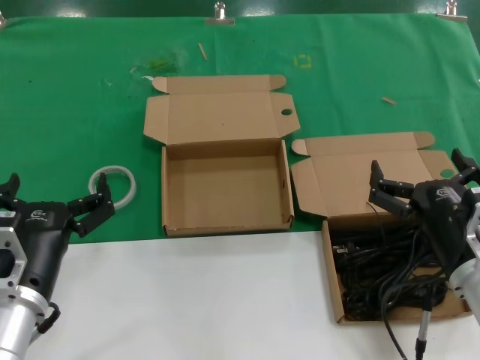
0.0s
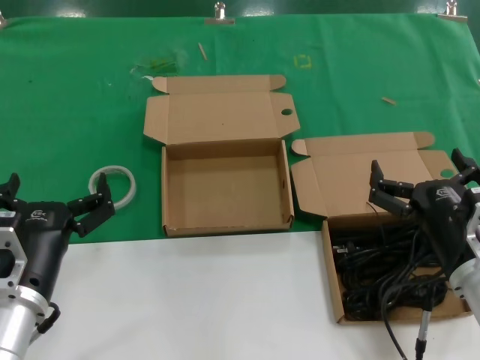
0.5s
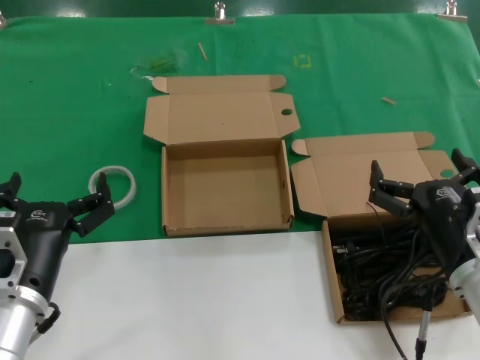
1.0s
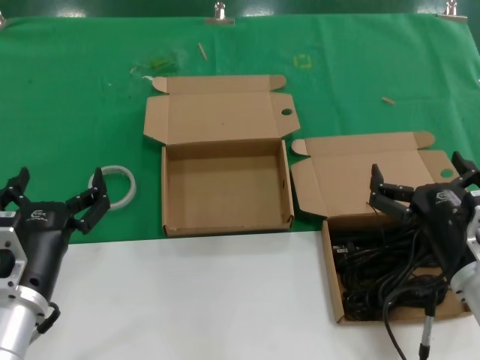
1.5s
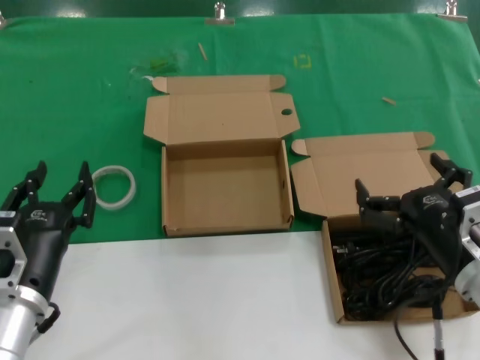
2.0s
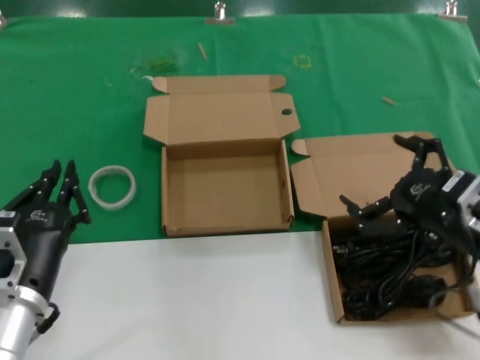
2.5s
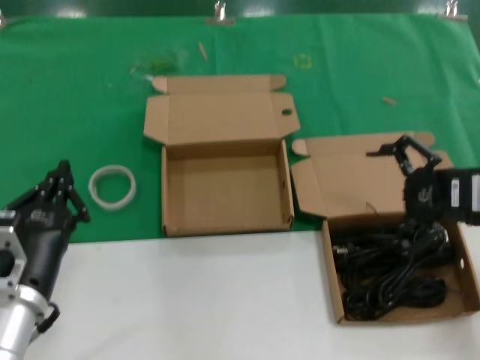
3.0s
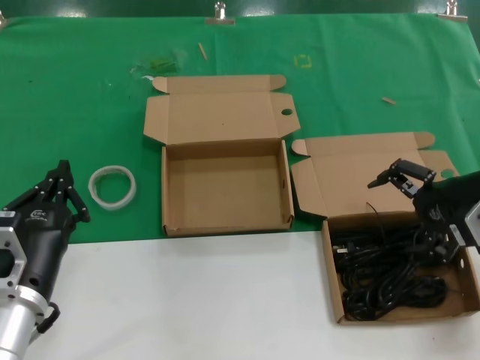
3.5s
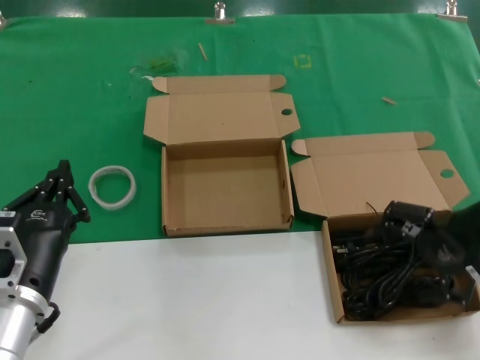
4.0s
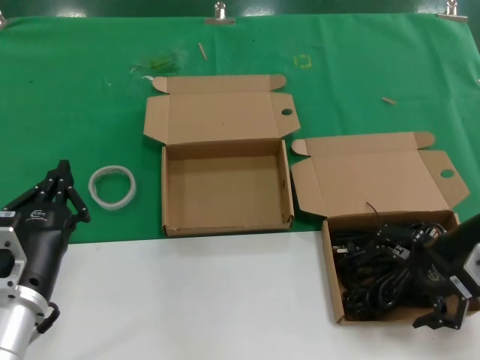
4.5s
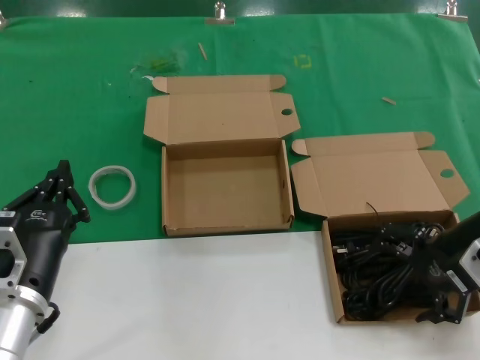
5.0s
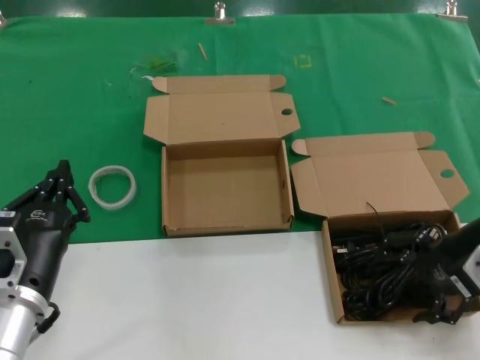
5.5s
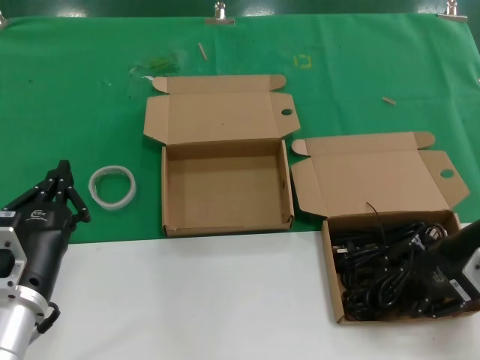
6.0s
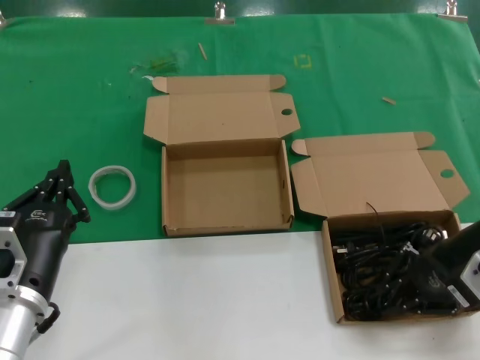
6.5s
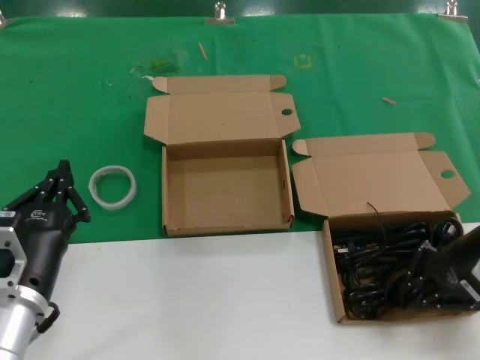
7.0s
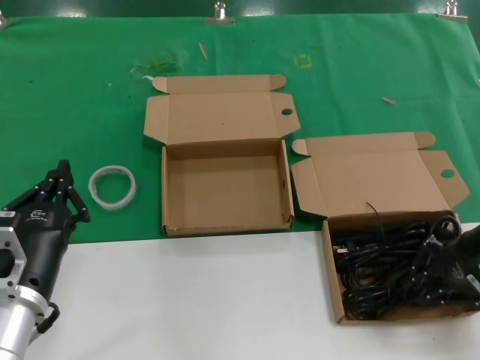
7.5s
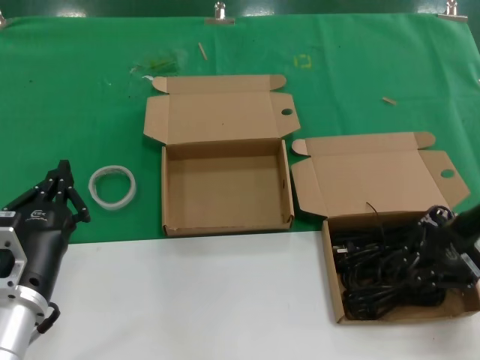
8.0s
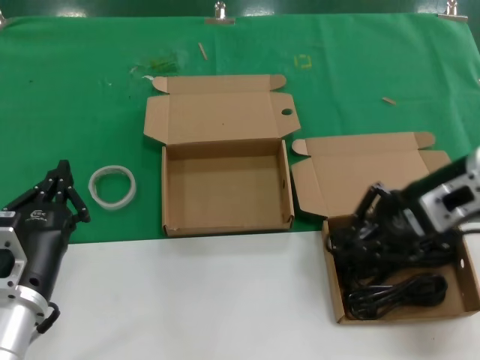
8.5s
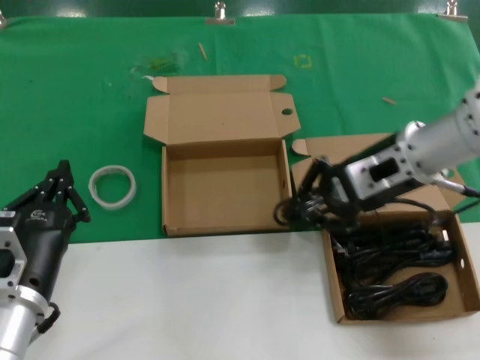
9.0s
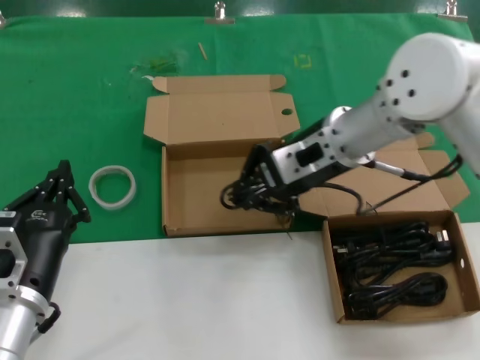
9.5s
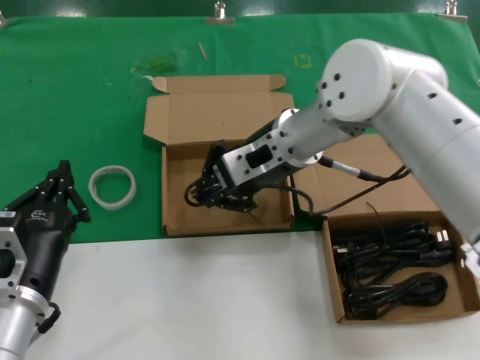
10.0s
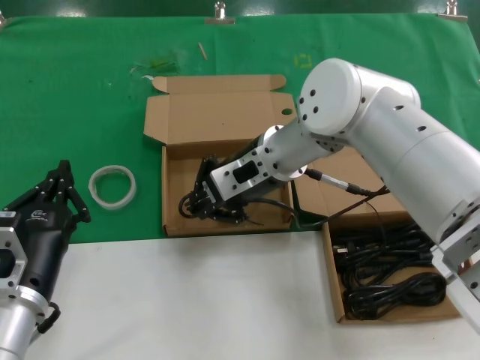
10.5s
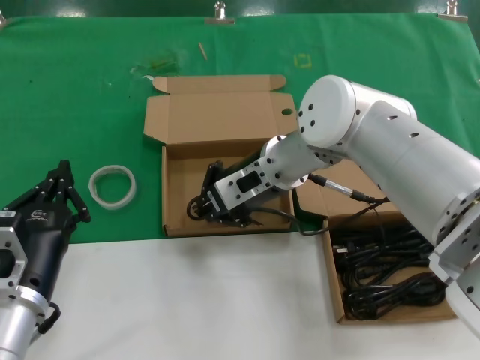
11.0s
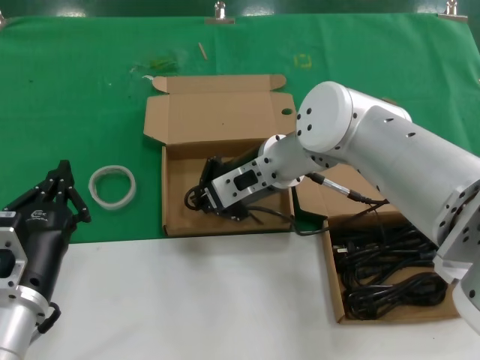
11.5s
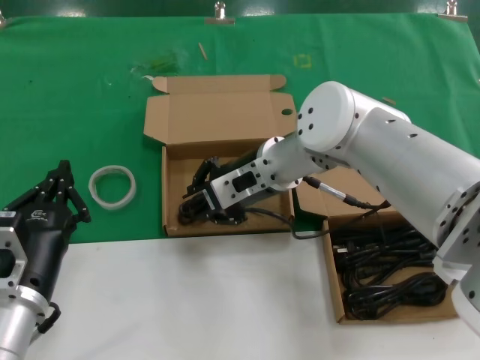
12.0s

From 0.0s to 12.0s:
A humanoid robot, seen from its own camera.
Task of the whole recording: take the parts from the box containing them and put them into an empty box.
Step, from 0.0s to 6.5s: Grasp the data cable.
Step, from 7.0s to 12.0s: Place the data cable in the another box.
From 0.0s to 2.0s: The hands stay close to where they were, moving slightly.
From 2.0s to 4.0s: The right hand shifts about 20 cm upward, forward and to the right.
From 4.0s to 8.0s: There are only small adjustments of the hands.
From 8.0s to 10.0s: The right hand shifts about 25 cm to the left.
From 10.0s to 12.0s: The right hand goes some 5 cm downward.

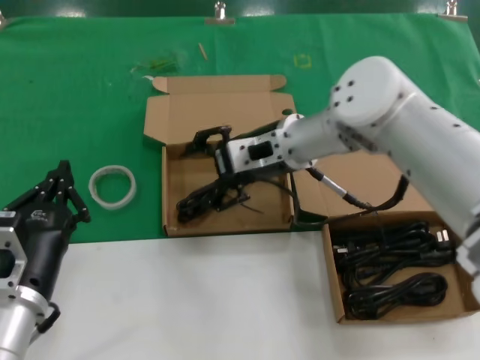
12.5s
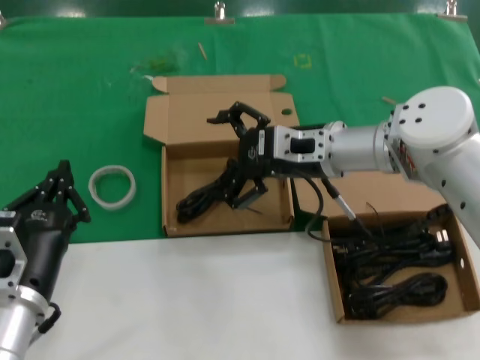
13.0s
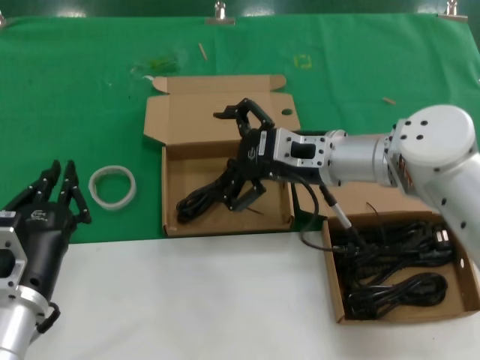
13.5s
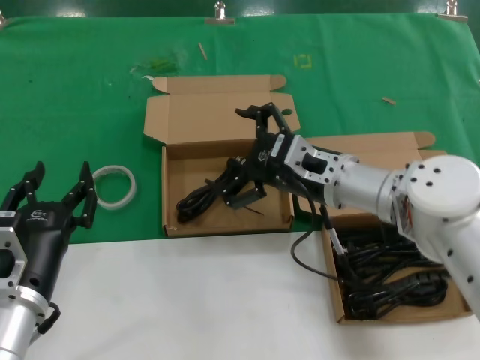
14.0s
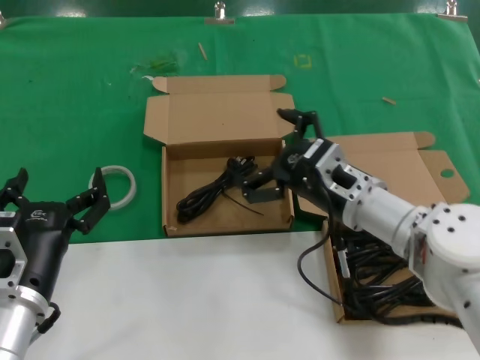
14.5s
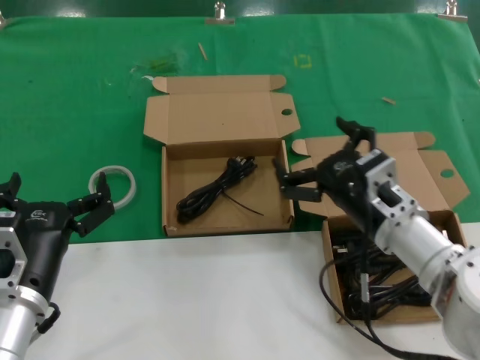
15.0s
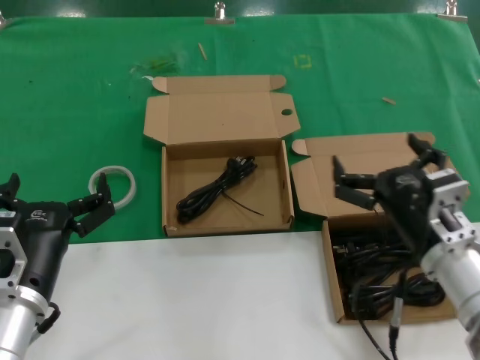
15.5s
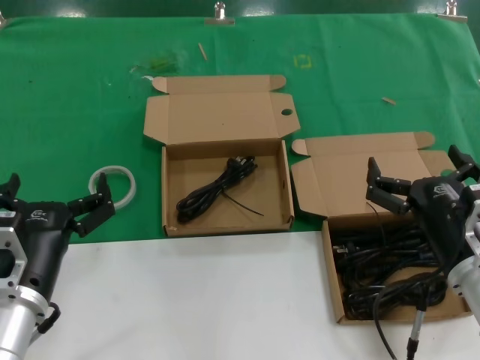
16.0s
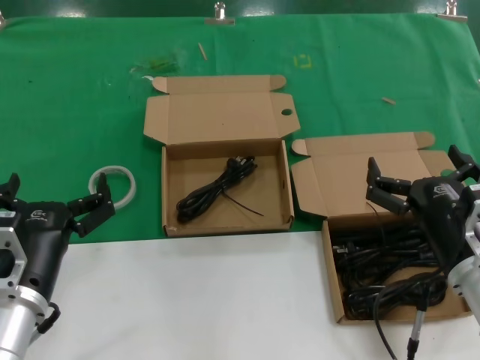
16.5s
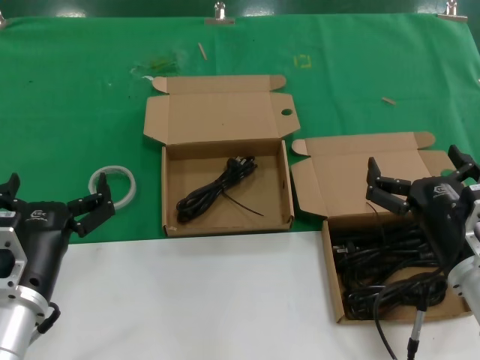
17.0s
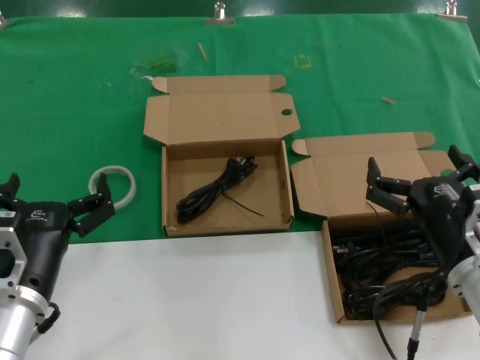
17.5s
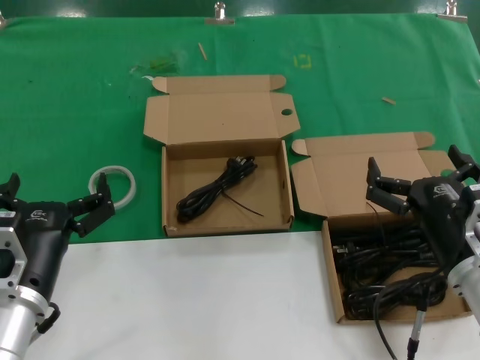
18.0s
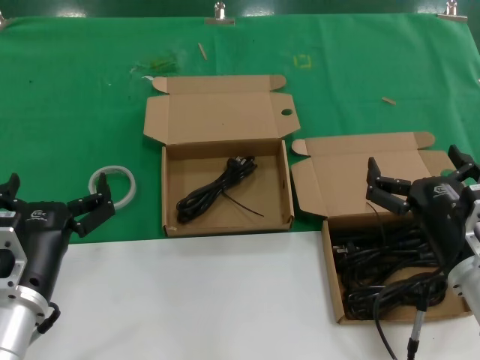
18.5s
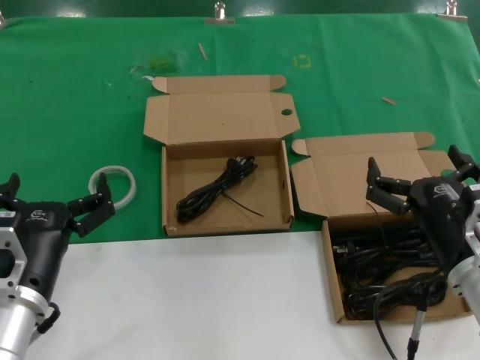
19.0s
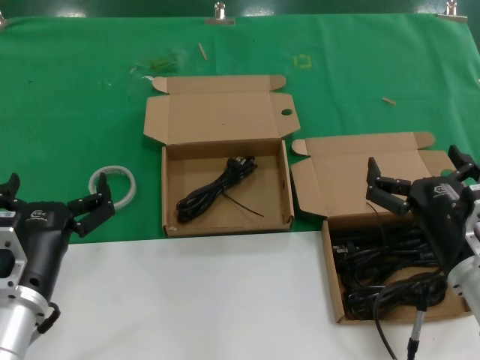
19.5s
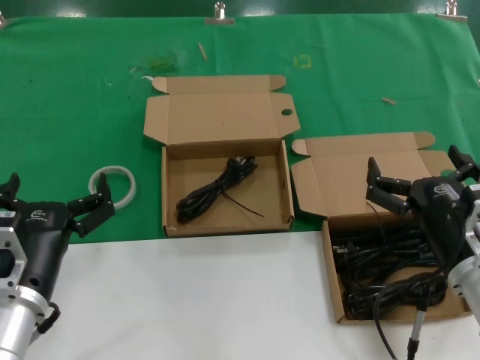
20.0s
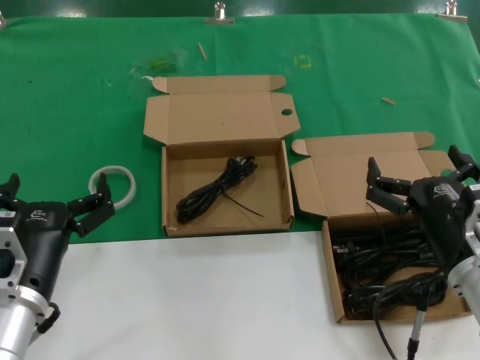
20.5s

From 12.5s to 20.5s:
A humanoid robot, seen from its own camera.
Task of the whole recording: take the parts from the box containing them and put them into an empty box.
From 12.5s to 14.5s: The right hand travels backward, downward and to the right by approximately 15 cm.
From 14.5s to 16.5s: The right hand shifts about 15 cm backward and to the right.
From 16.5s to 20.5s: The two hands keep their place.

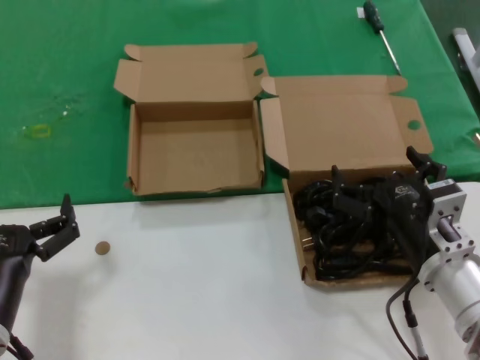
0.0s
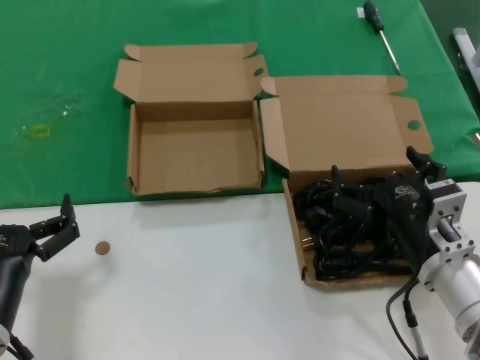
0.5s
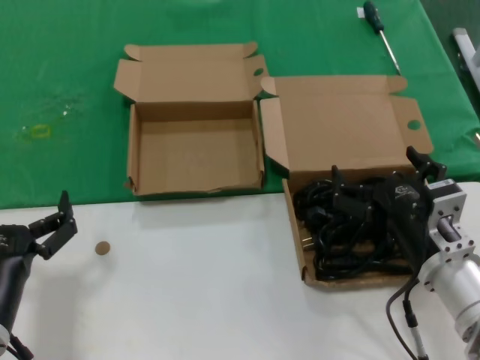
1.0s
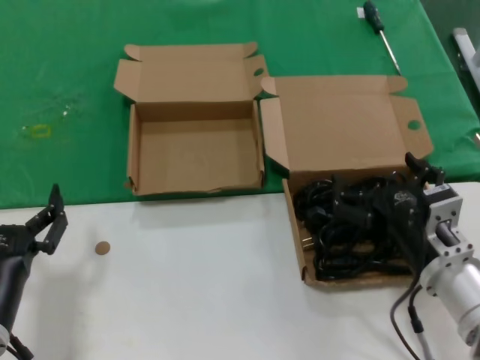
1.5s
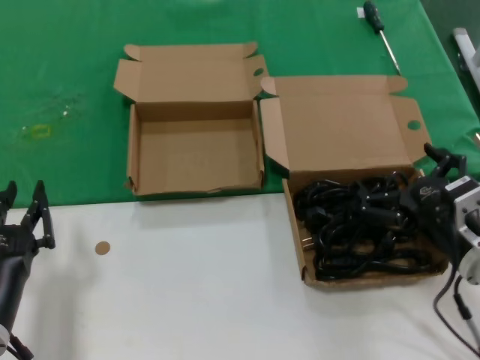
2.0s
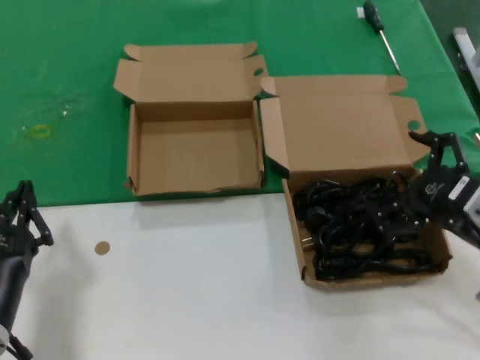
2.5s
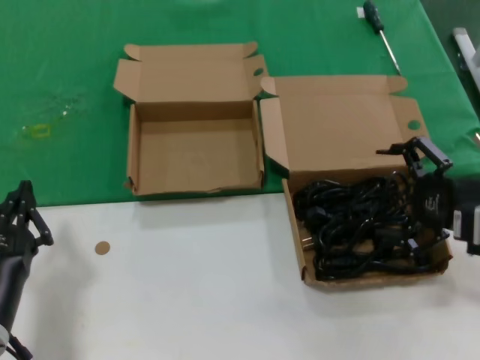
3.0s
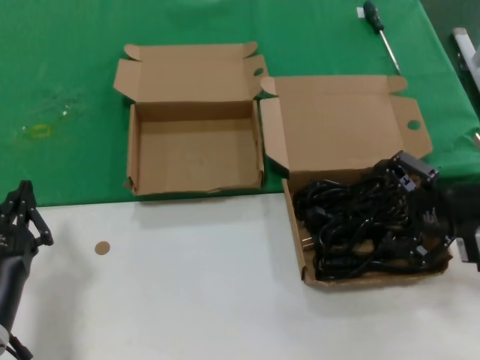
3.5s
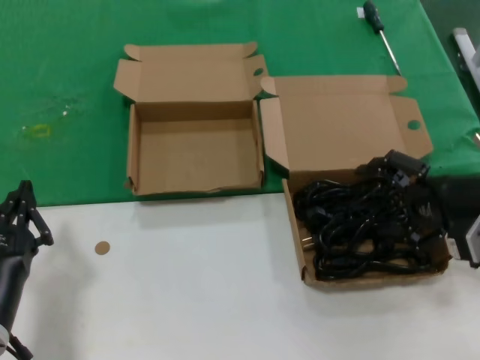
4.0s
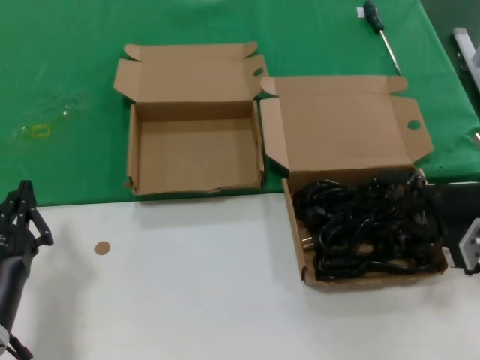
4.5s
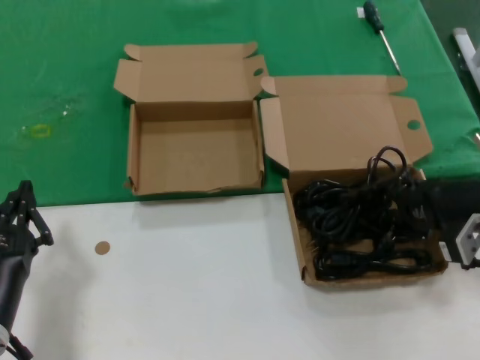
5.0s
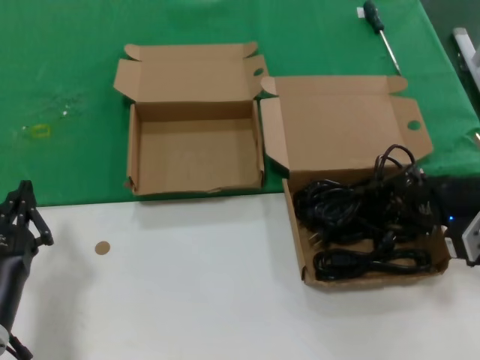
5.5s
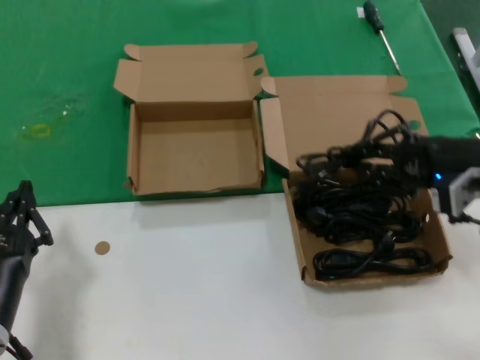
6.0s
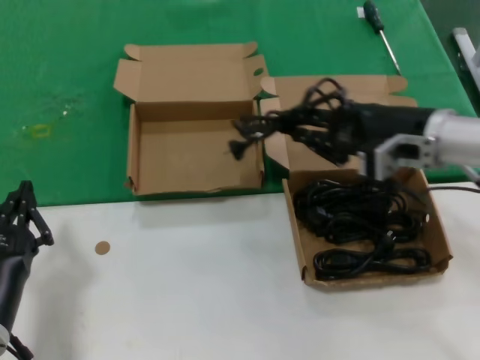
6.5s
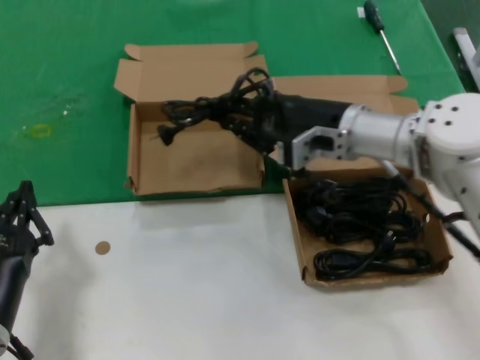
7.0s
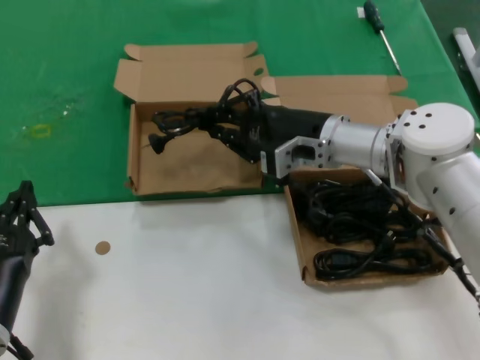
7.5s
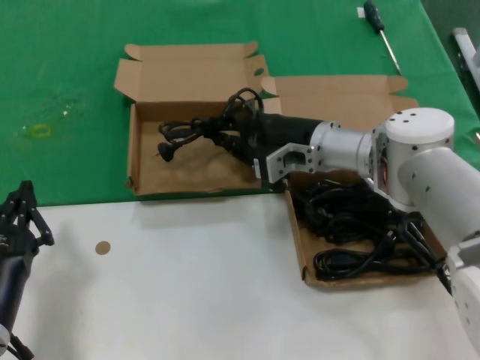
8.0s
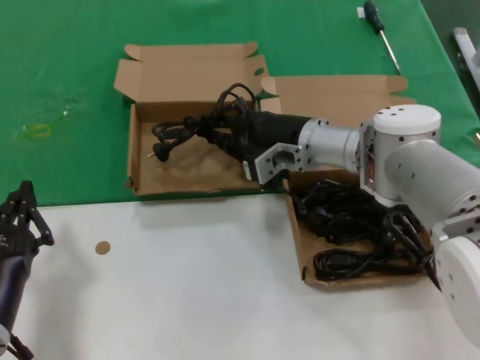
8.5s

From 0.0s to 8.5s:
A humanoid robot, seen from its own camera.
Task of the whole recording: take the parts from the box containing them and put them into an empty box.
Step, from 0.0s to 4.5s: Grasp the data cable.
From 0.0s to 2.0s: The right hand goes roughly 5 cm to the right.
From 2.0s to 4.0s: The right hand is displaced upward, to the right and forward by some 15 cm.
From 4.0s to 6.5s: The right hand shifts roughly 10 cm to the left and forward.
From 6.5s to 8.5s: The right hand moves to the left, forward and downward, some 20 cm.
